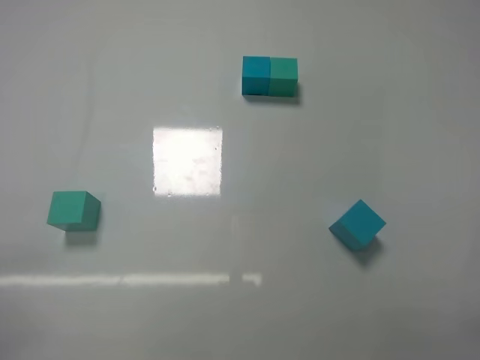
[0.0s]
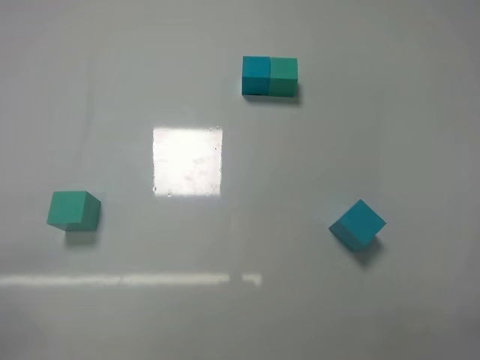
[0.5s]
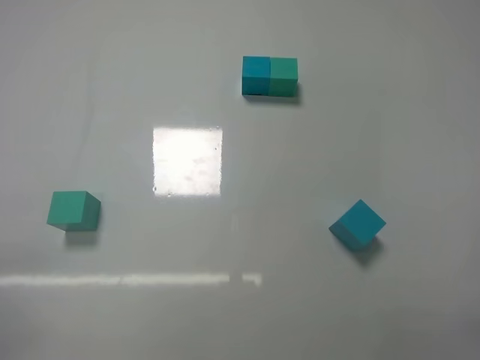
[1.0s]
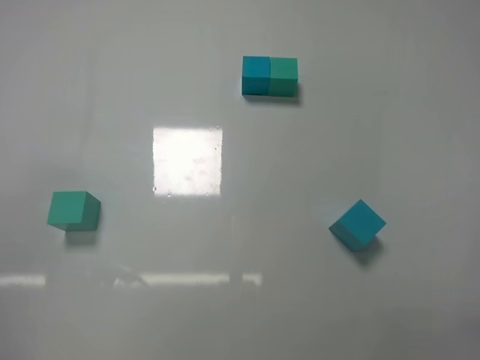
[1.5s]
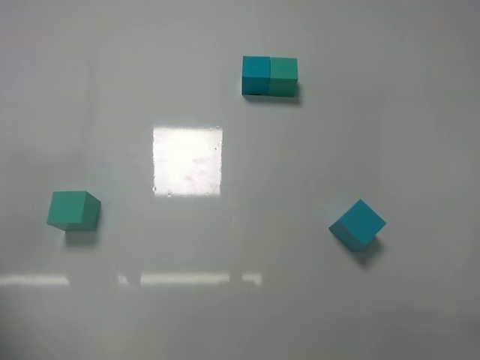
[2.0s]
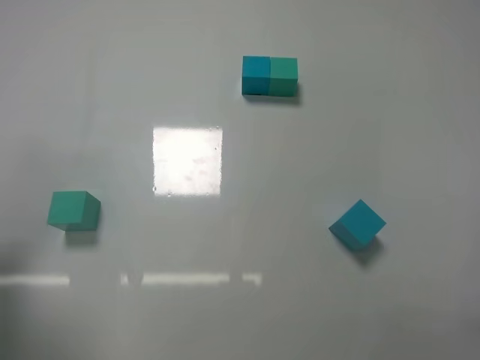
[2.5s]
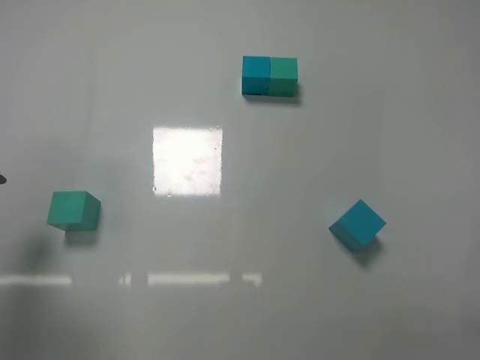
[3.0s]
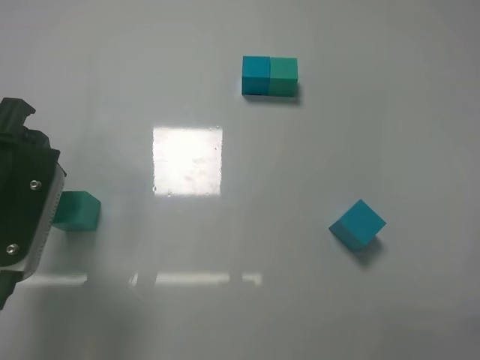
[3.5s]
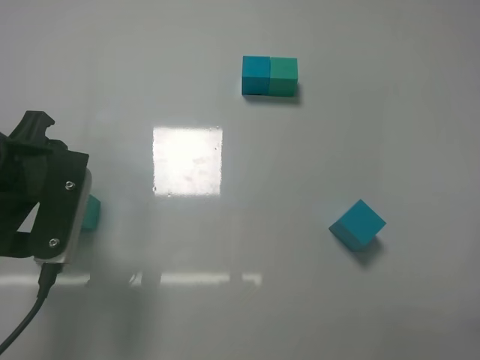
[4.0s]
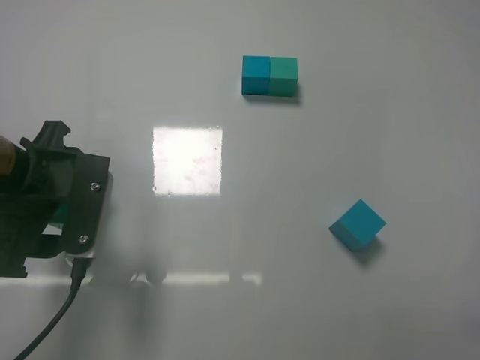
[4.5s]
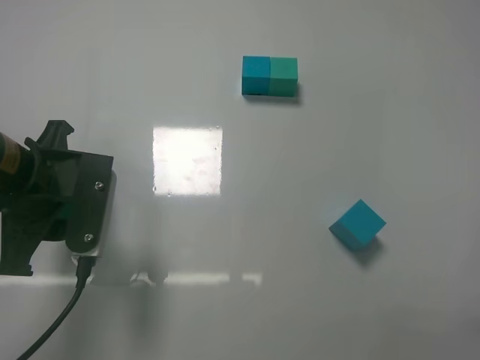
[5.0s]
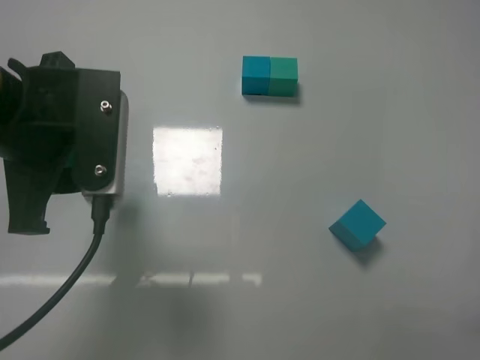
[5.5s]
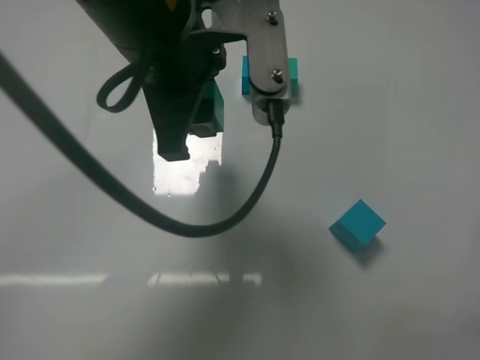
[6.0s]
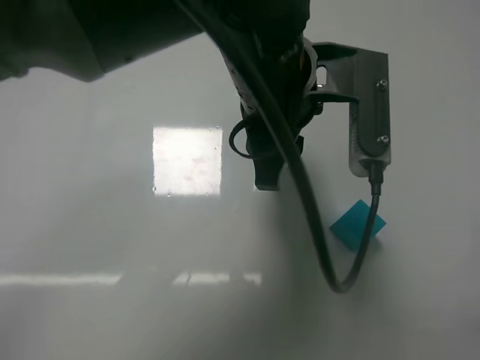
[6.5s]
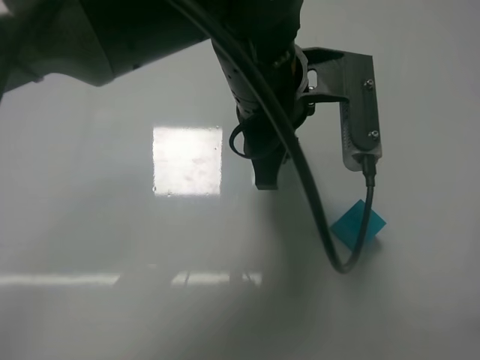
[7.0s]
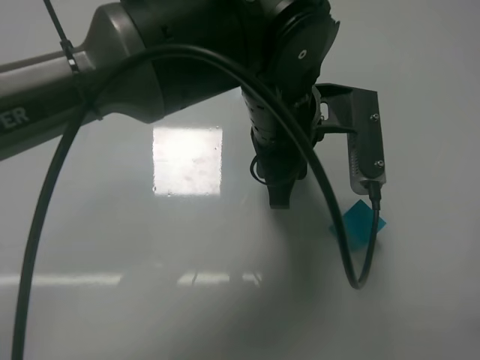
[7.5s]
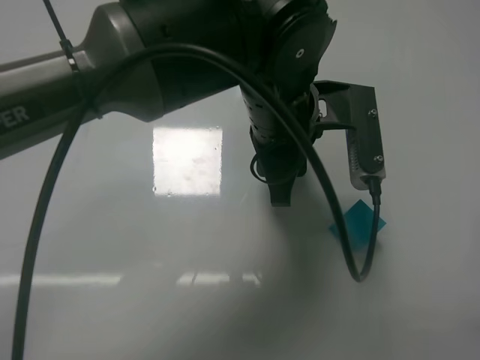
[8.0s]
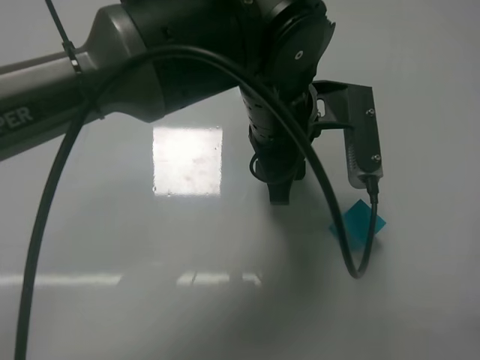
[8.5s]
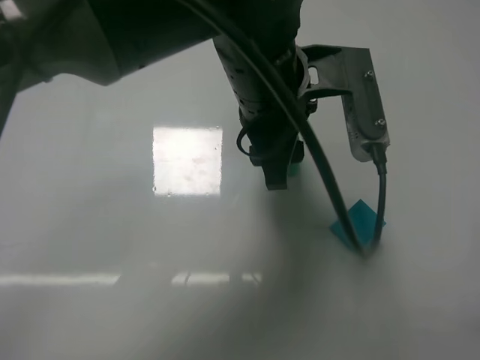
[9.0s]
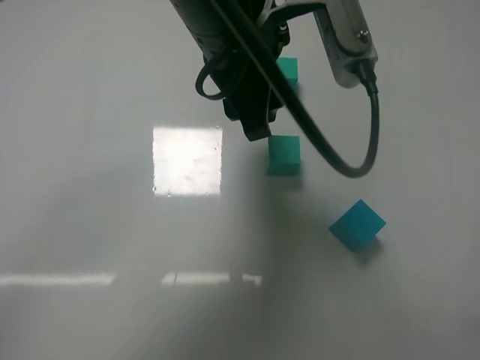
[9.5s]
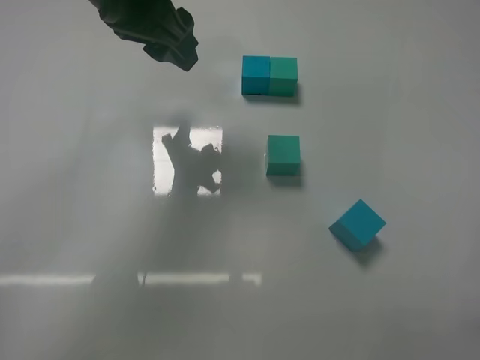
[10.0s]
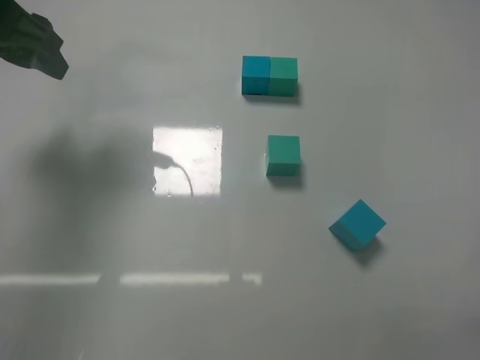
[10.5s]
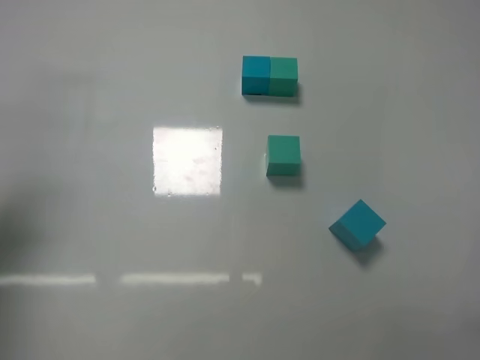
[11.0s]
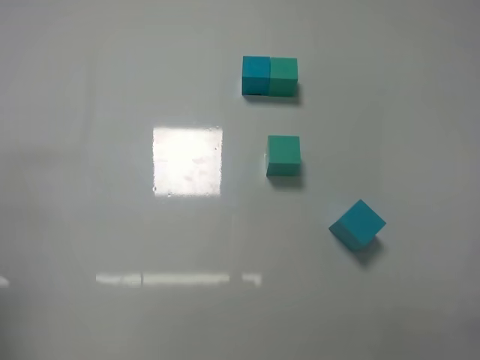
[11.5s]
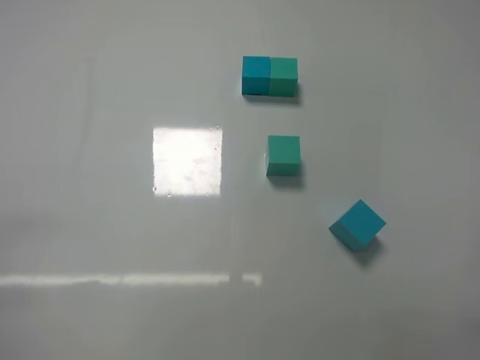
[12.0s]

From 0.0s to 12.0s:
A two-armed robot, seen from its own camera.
Task of the whole recording: According to the building block template in front, assemble the scattered blocks together.
Step, from 0.0s to 4.5s: Grasp the green block with left gripper.
Step, from 5.0s to 9.0s: Adjust the position of the cube with the left gripper.
From 2.0s to 4.0s: The left gripper is displaced forward, to the right and downward by about 15 cm.
From 4.0s to 6.0s: The left gripper moves to the right and upward, some 20 cm, and closes up.
From 6.0s to 8.0s: The left gripper shifts roughly 10 cm to the right and downward.
From 8.0s to 10.0s: The left gripper travels to the left and upward by about 20 cm, and opens up.
From 10.0s to 12.0s: The left gripper shifts approximately 40 cm backward, to the left and downward.

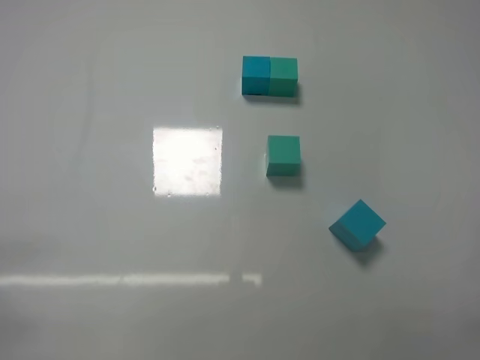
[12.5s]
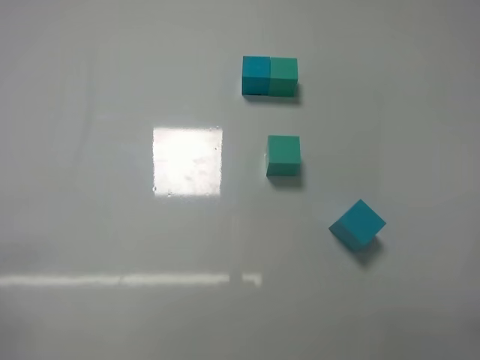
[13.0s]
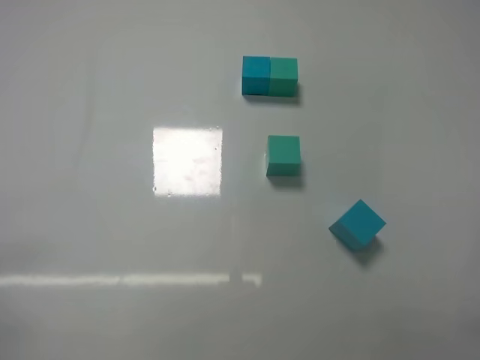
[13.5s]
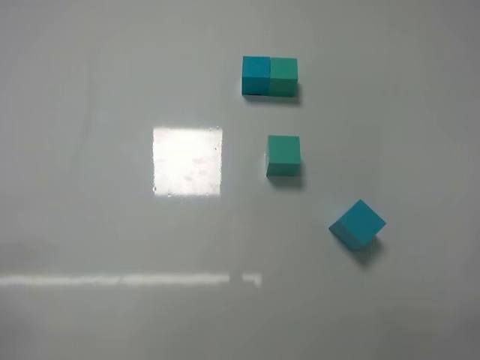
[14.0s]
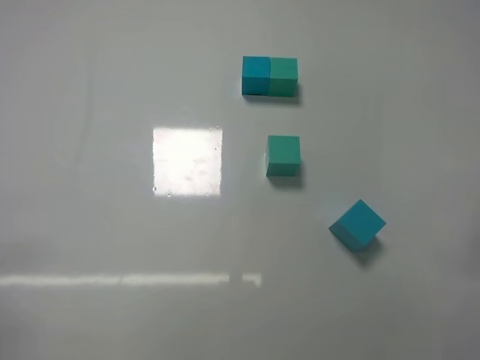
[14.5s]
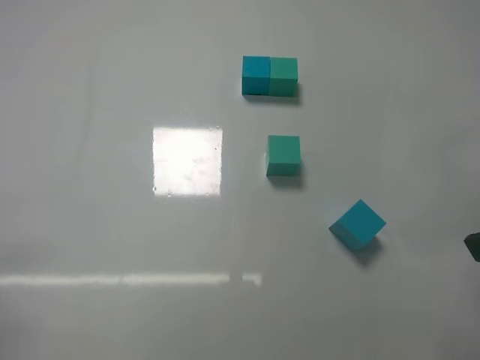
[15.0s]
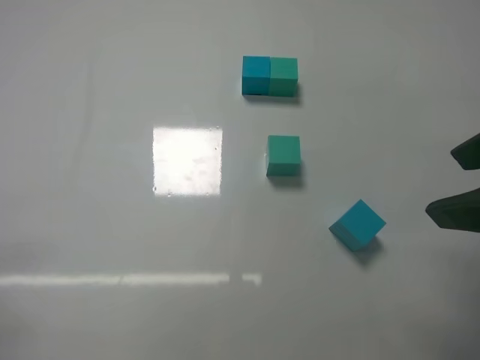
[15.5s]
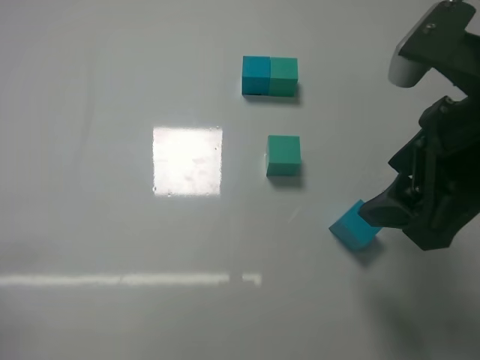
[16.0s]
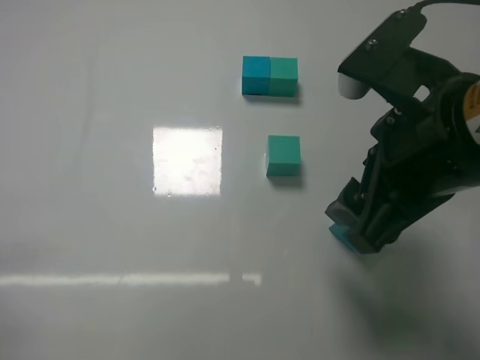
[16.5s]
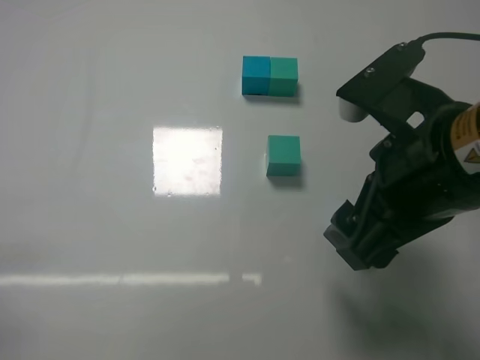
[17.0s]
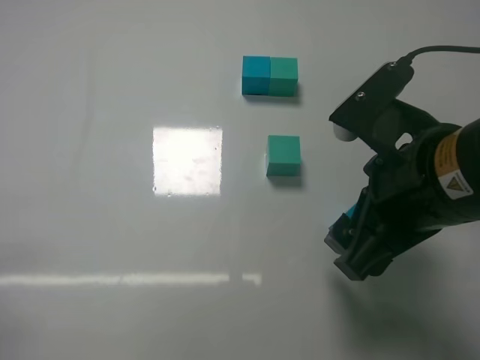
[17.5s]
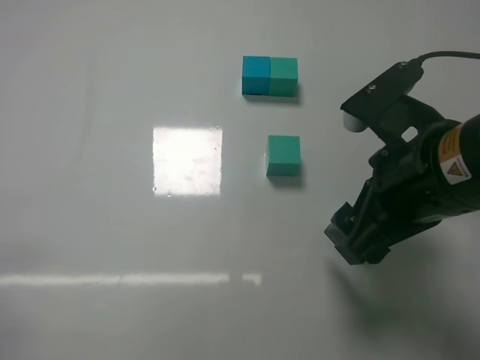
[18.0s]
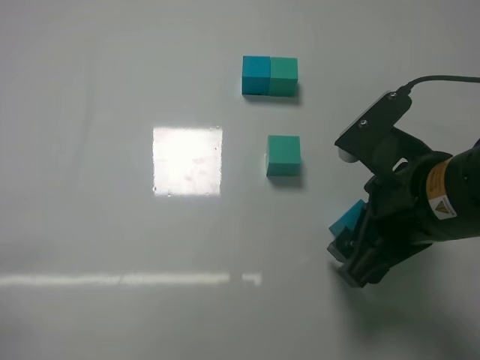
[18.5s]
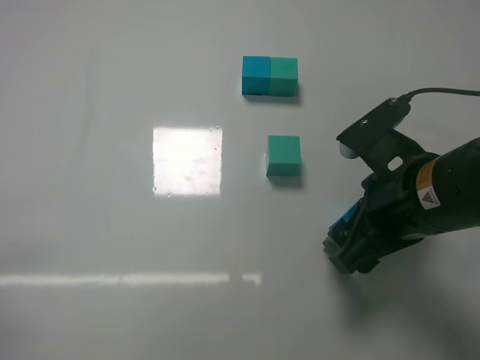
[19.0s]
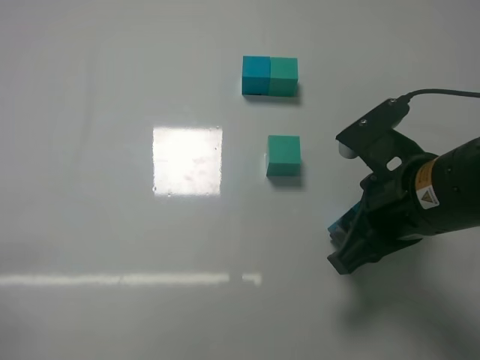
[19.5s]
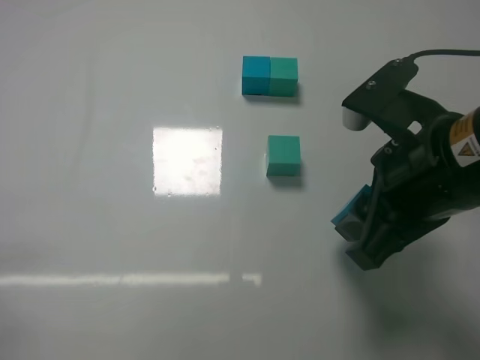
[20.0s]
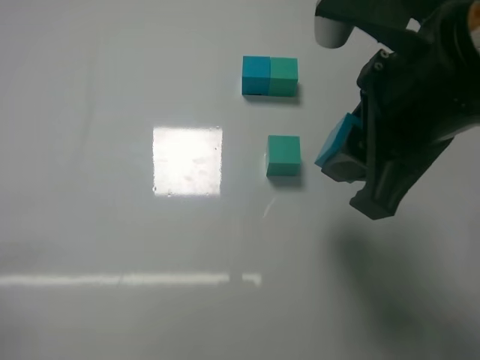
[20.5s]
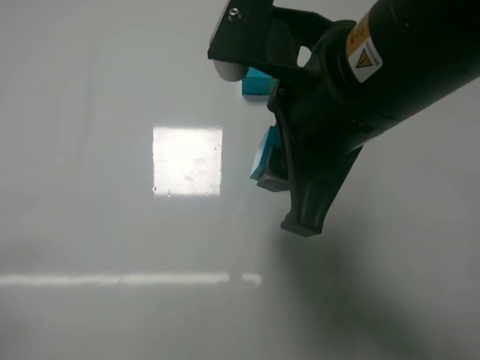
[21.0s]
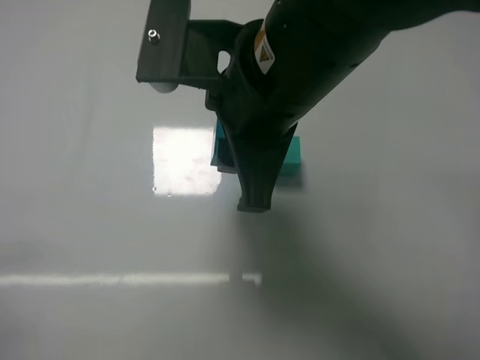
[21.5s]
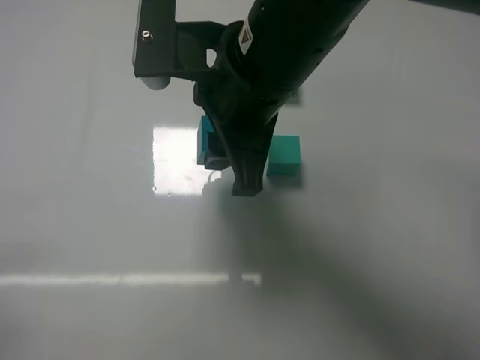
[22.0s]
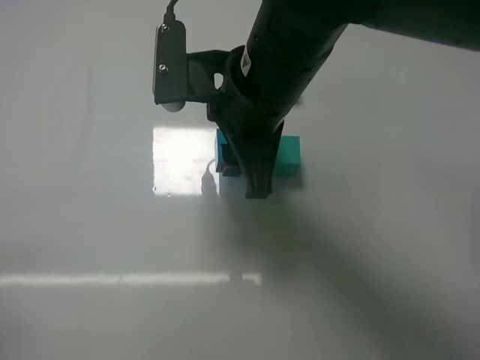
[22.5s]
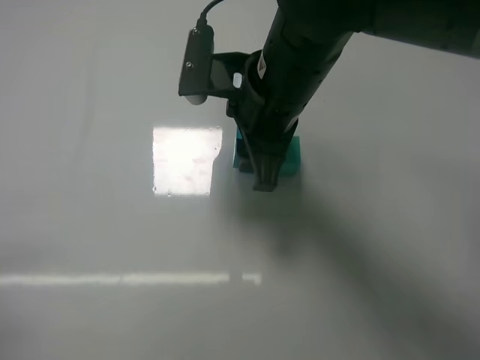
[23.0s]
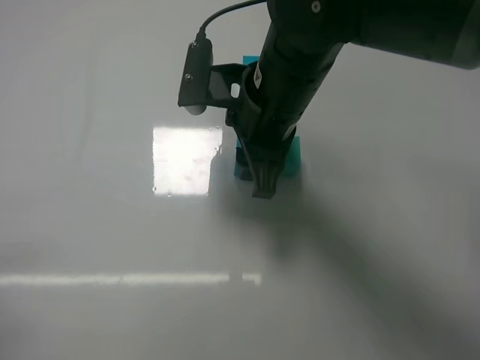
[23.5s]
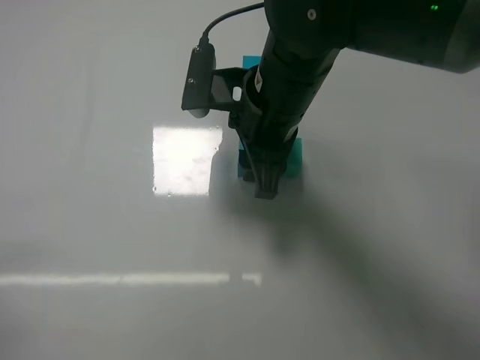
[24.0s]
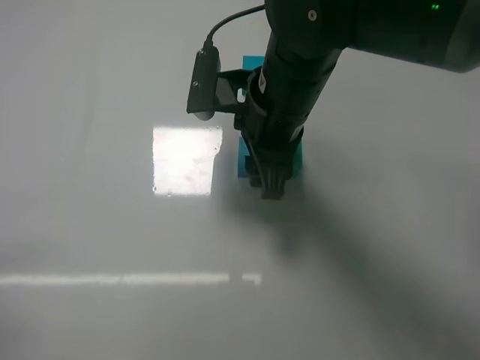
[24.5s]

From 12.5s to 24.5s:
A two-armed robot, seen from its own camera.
Task of the whole recording: According to the building block template in front, assemble the scattered blocks together.
Step, from 12.5s to 19.0s: Grasp the blue block with right gripper.
From 14.5s to 16.5s: The right gripper heads to the left and forward, covering some 20 cm, and opens.
From 16.5s to 18.5s: The right gripper shifts approximately 5 cm downward.
From 18.5s to 20.5s: The right gripper travels upward by about 10 cm, and closes up.
From 20.5s to 22.5s: The right gripper goes roughly 15 cm to the left and forward.
From 22.5s to 24.5s: The grippers make only small movements.

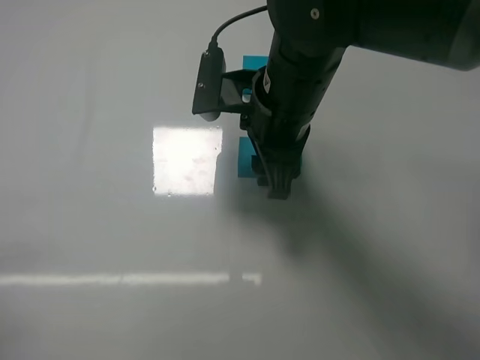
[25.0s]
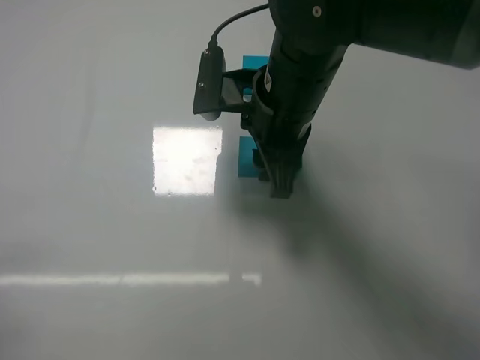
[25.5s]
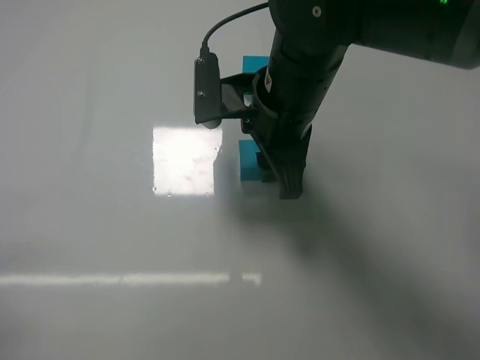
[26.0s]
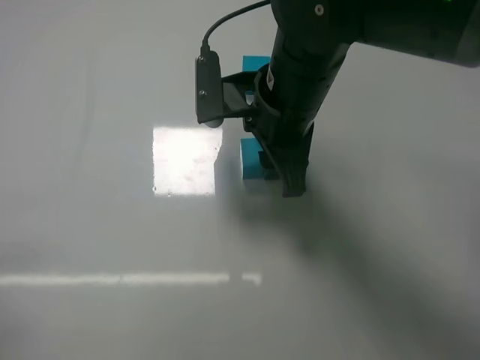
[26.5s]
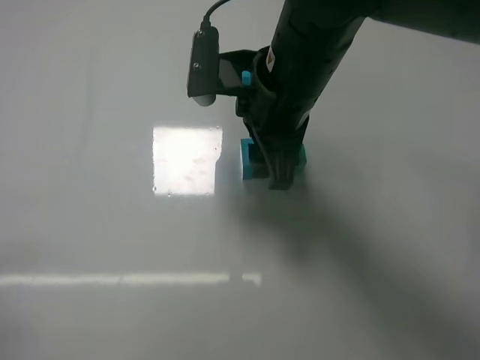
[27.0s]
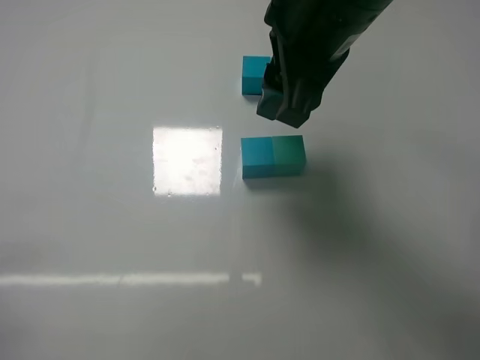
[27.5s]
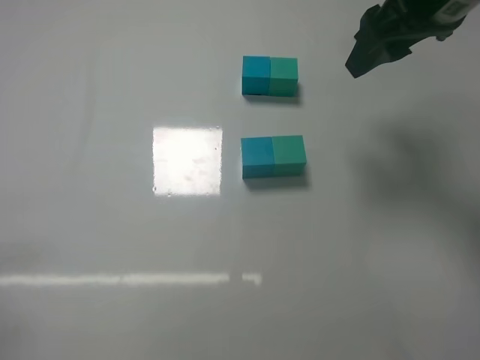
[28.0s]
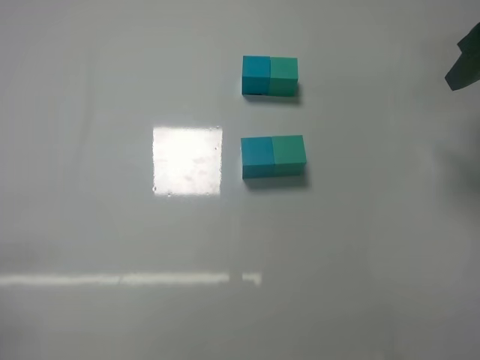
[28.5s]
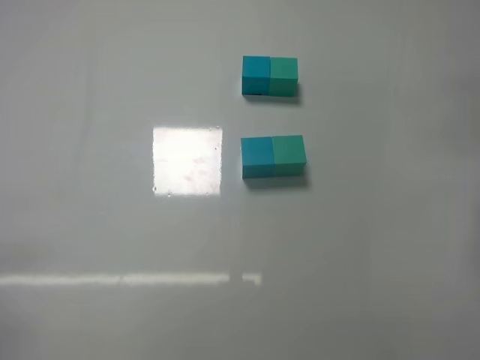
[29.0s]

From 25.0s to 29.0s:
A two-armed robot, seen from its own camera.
Task of the whole recording: According to the building block template in front, assemble the scattered blocks together.
Step, from 25.0s to 27.0s: Put the blue cube and green cube in the center of the table with the right gripper.
From 25.0s to 27.0s: There are only small adjustments of the grippers.
From 27.0s to 29.0s: The right gripper heads to the right, covering approximately 25 cm.
